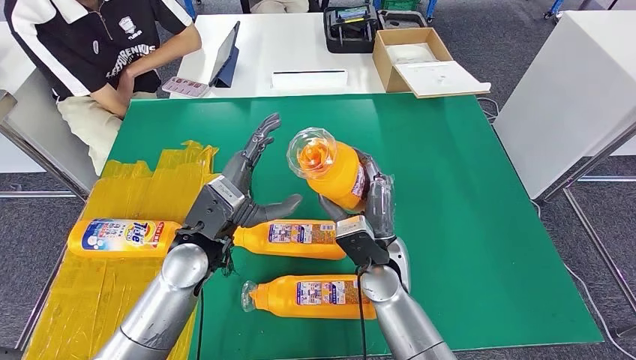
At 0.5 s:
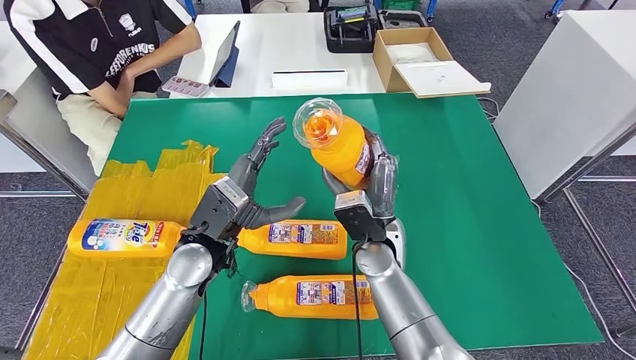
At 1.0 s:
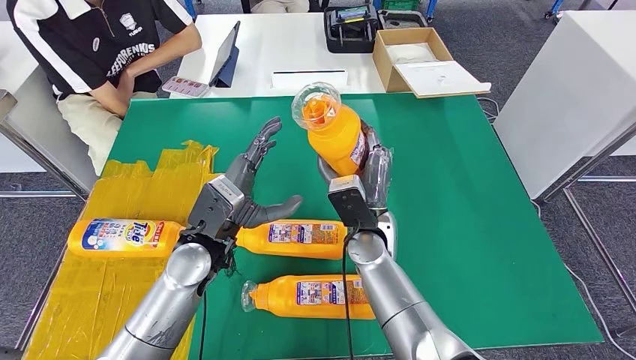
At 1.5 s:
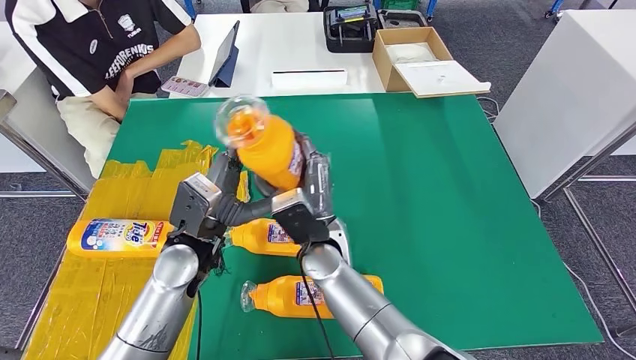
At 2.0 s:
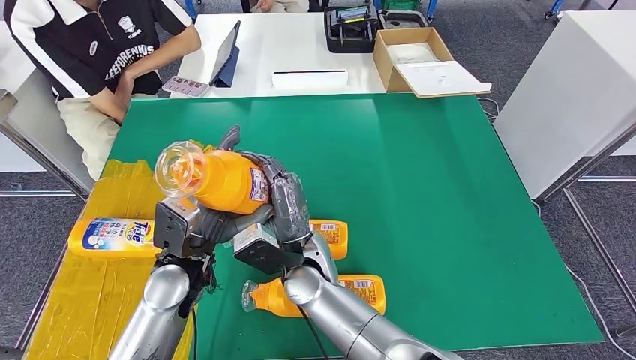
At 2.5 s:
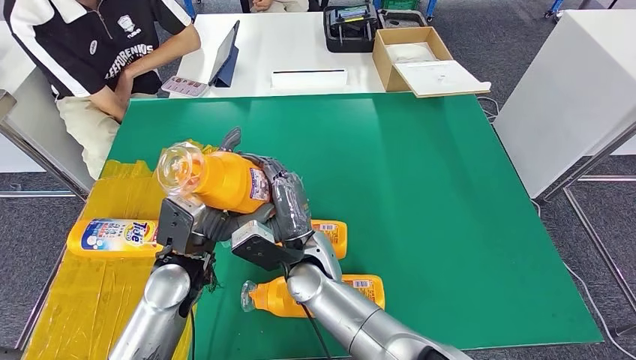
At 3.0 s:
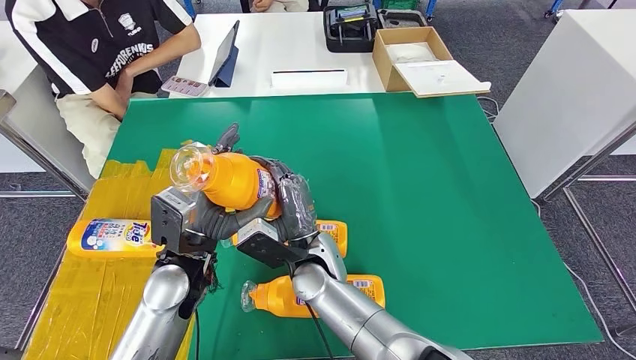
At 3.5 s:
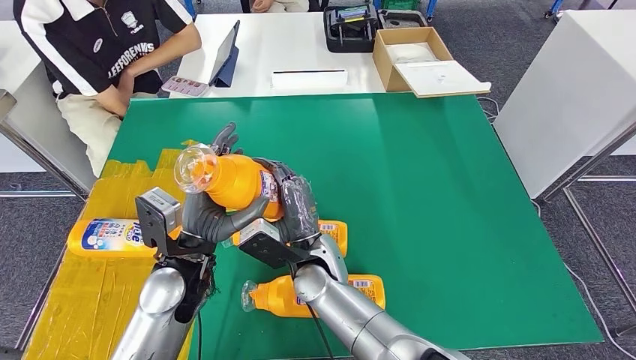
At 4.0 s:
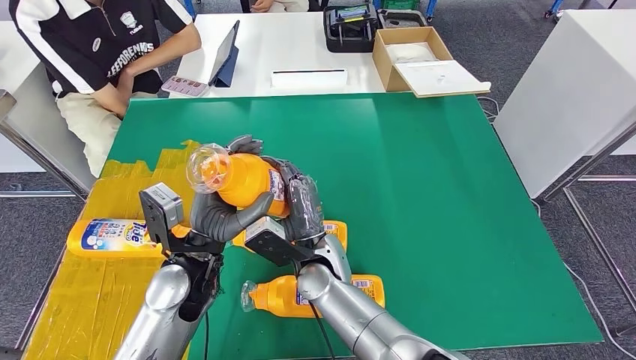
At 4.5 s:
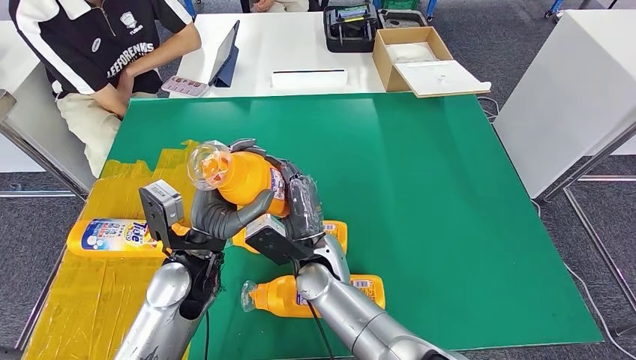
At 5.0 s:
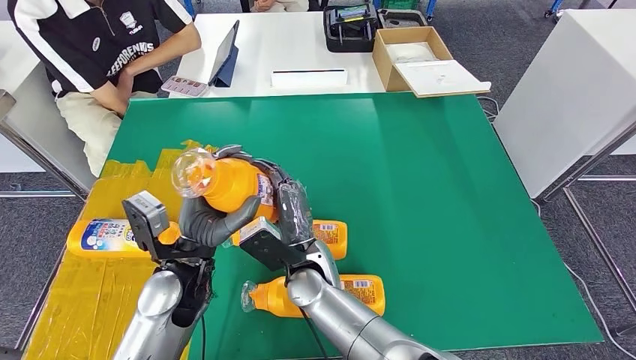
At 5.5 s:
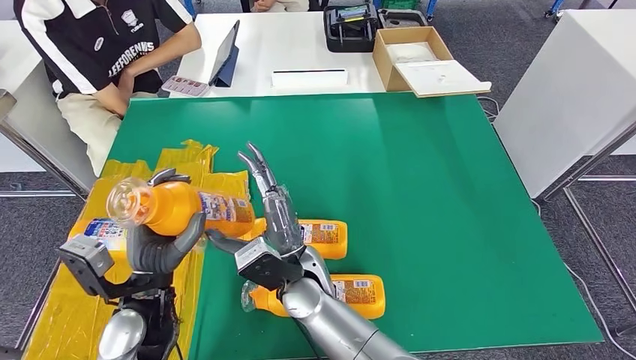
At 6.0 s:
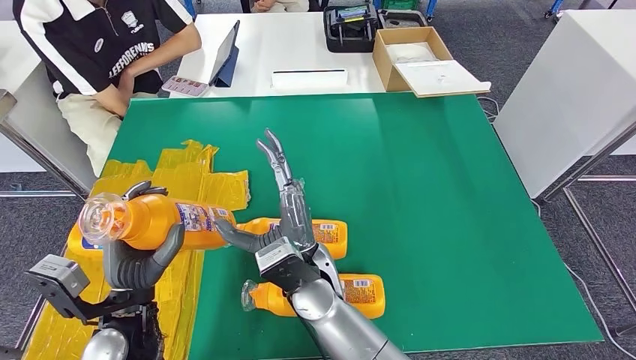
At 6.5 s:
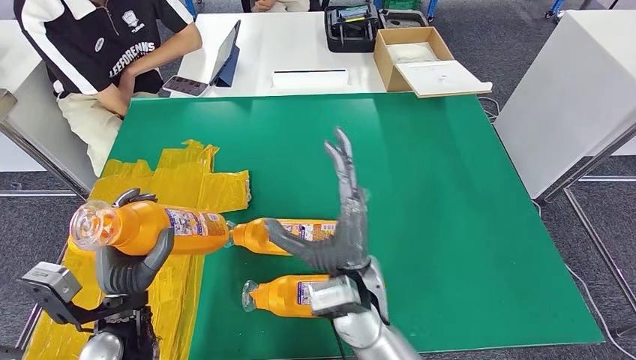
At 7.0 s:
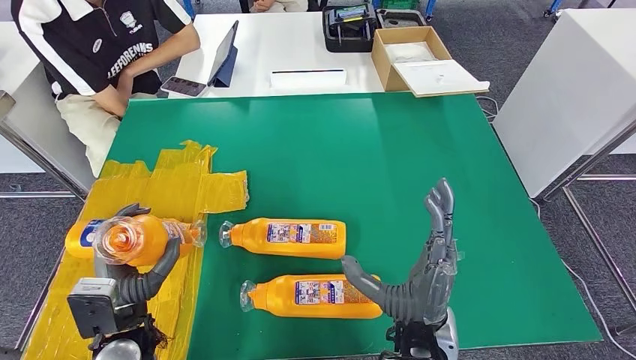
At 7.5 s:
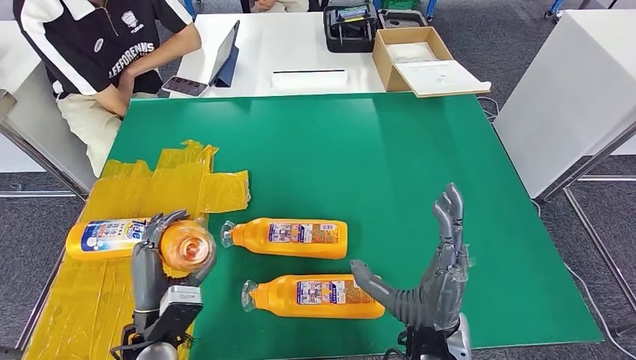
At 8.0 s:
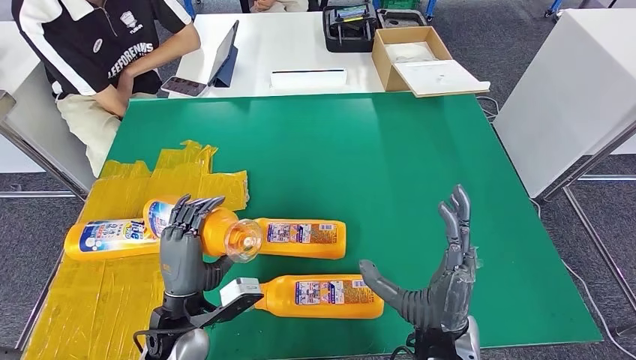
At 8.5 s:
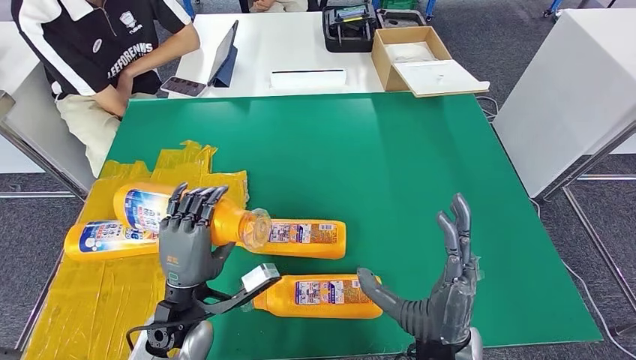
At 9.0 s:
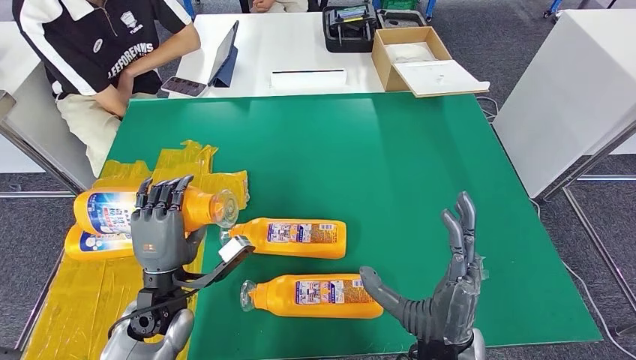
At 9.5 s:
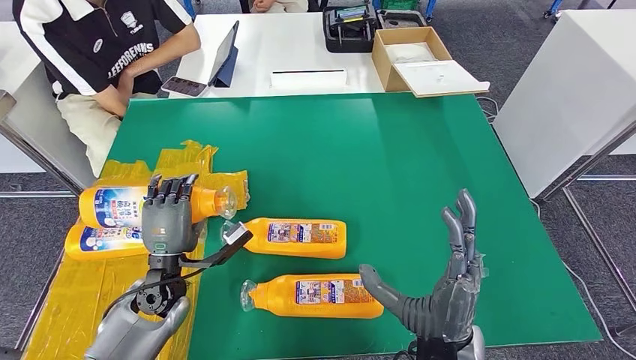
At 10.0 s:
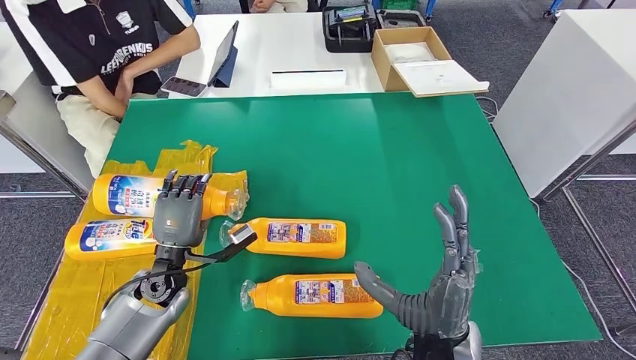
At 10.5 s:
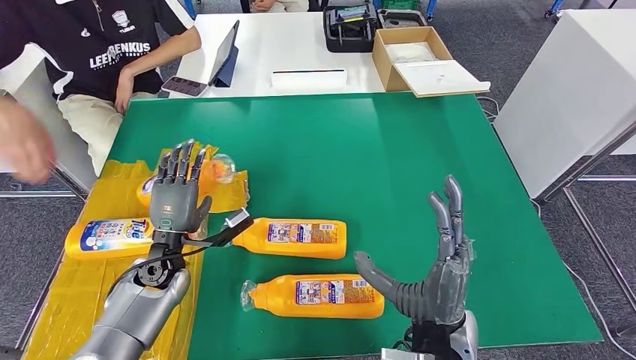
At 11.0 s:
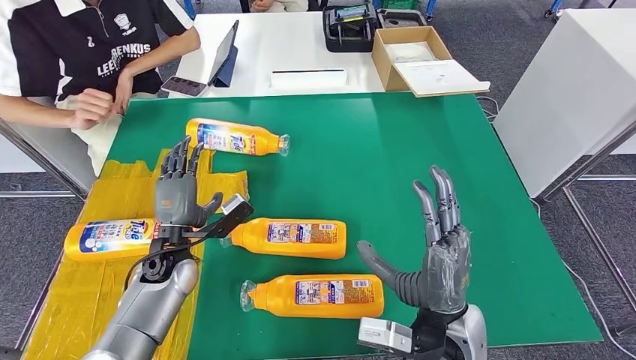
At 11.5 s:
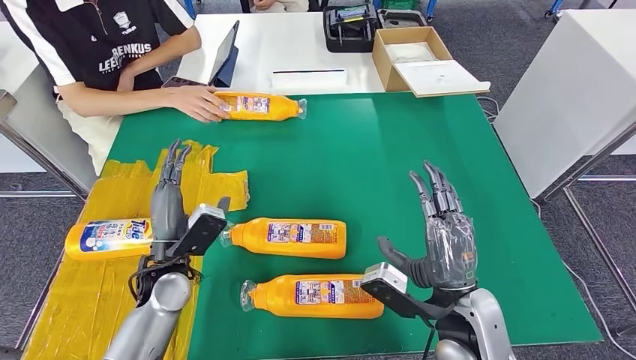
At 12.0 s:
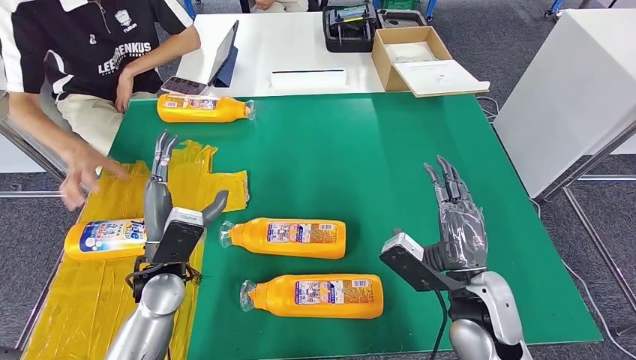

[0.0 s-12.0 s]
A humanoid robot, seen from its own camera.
Step, 0.0 to 10.5 s: Flip the fast-moving consumer goods bottle to the front side.
0.0 to 2.0 s: The right hand heads to the left, covering roughly 10 cm.
2.0 to 4.0 s: The hands move only a little.
4.0 to 6.0 s: The right hand shifts by roughly 5 cm. Meanwhile the left hand travels backward and to the left by about 10 cm.
6.0 to 8.0 s: The left hand is displaced to the right by some 5 cm. Meanwhile the right hand moves to the right and backward, roughly 20 cm.
8.0 to 10.0 s: The left hand travels forward and to the left by approximately 10 cm.

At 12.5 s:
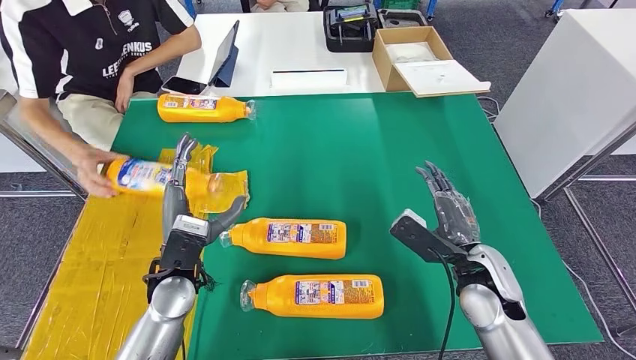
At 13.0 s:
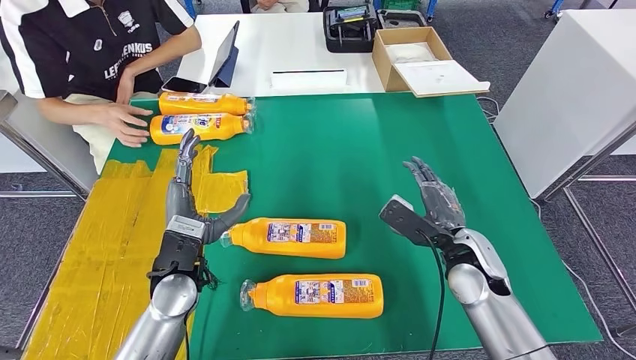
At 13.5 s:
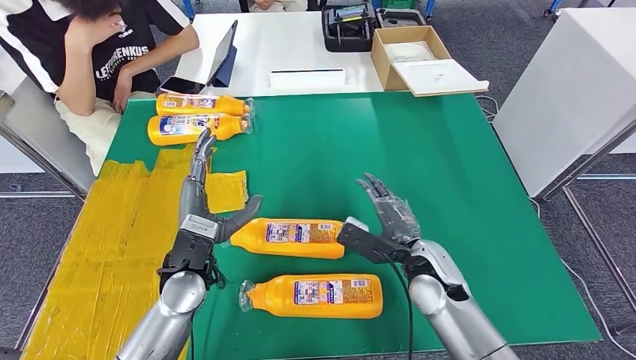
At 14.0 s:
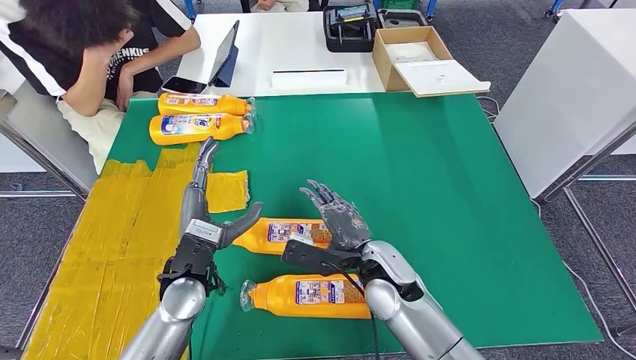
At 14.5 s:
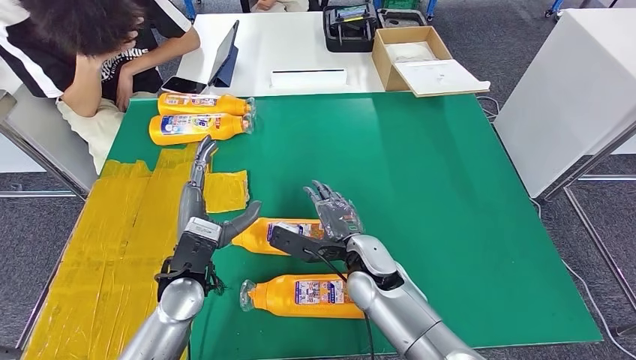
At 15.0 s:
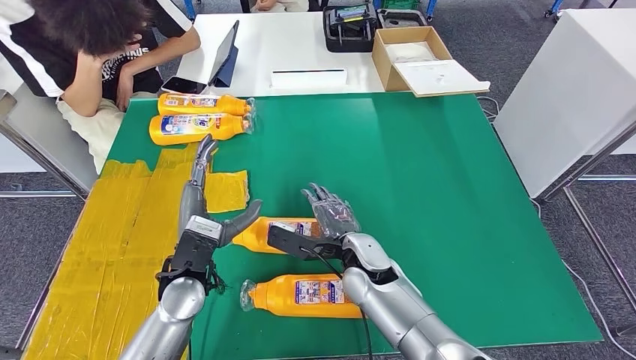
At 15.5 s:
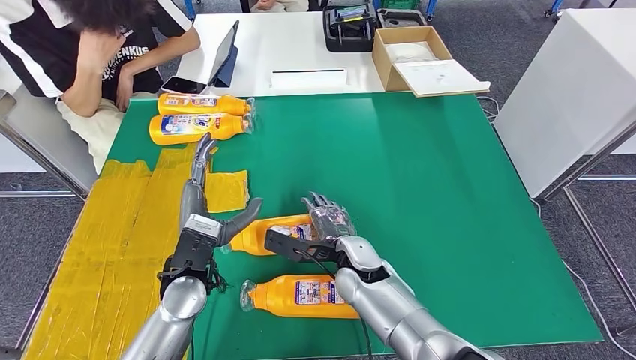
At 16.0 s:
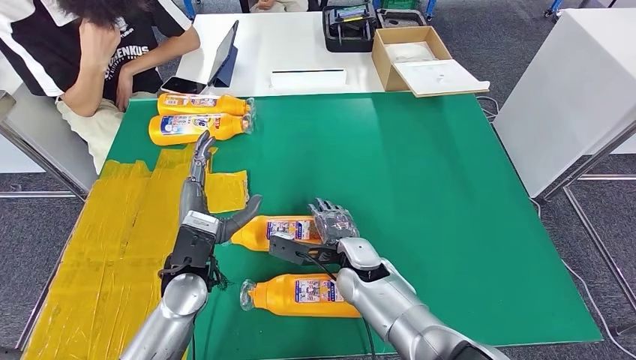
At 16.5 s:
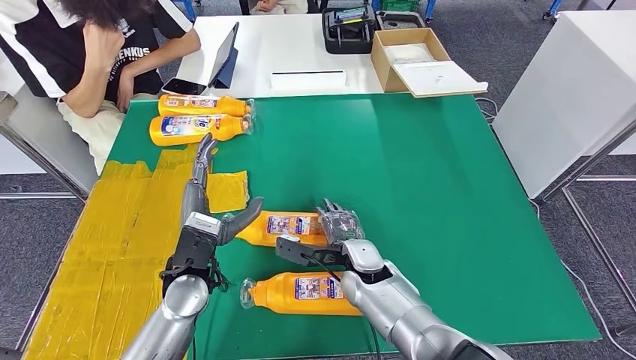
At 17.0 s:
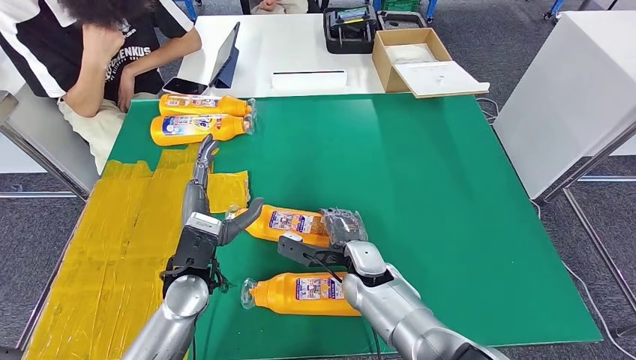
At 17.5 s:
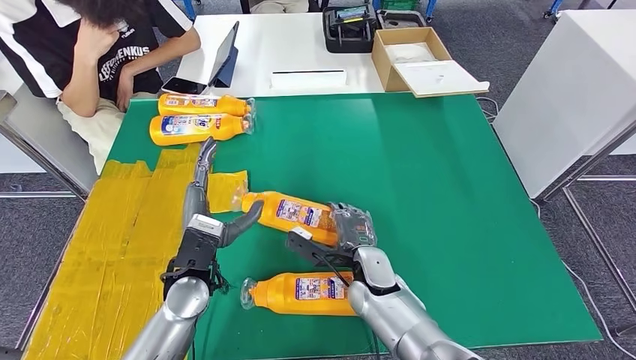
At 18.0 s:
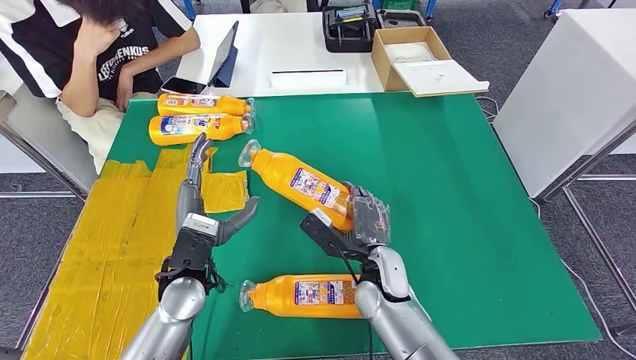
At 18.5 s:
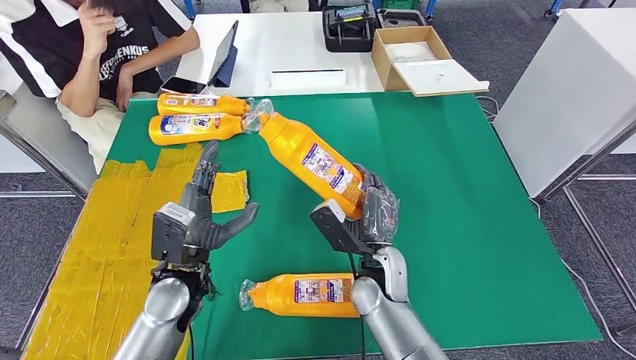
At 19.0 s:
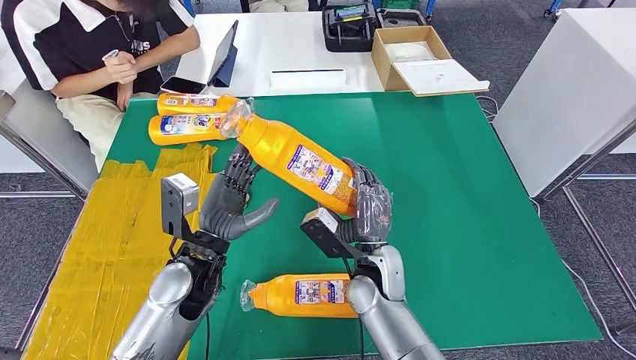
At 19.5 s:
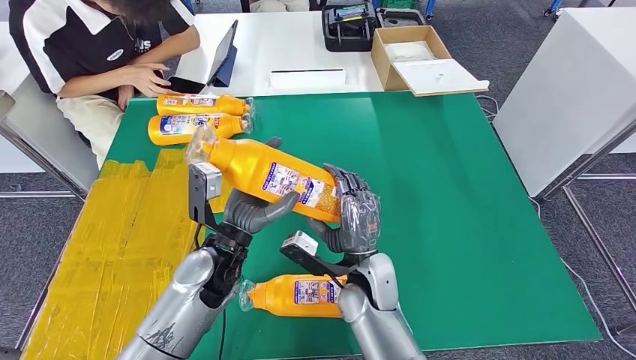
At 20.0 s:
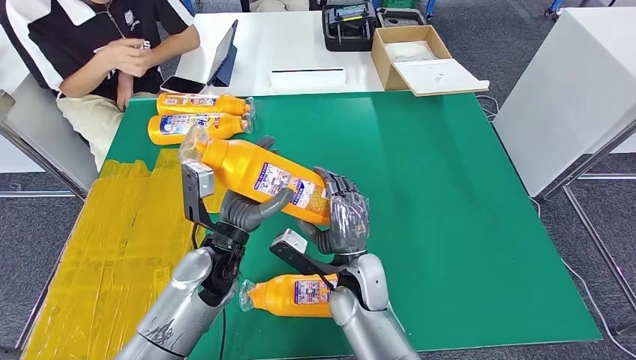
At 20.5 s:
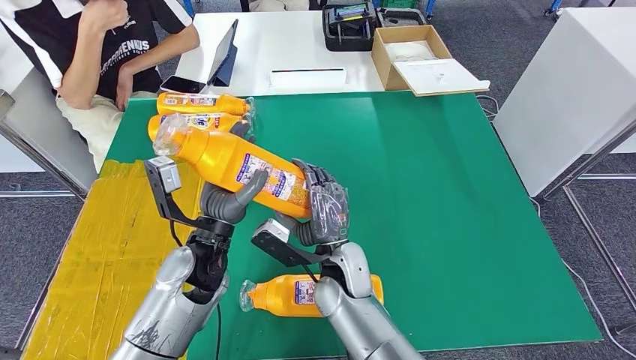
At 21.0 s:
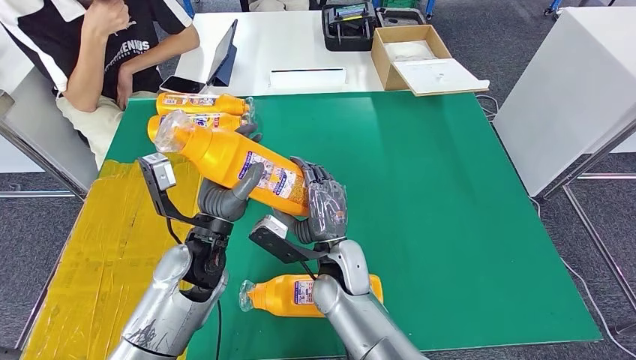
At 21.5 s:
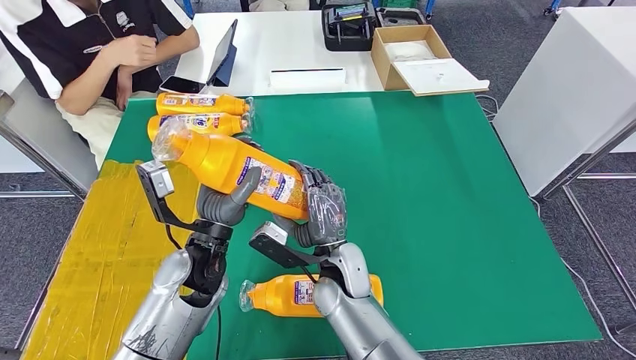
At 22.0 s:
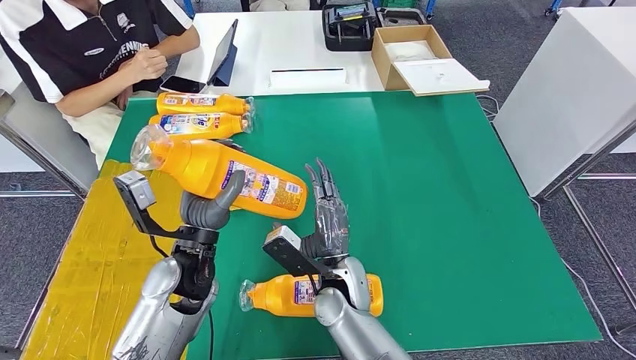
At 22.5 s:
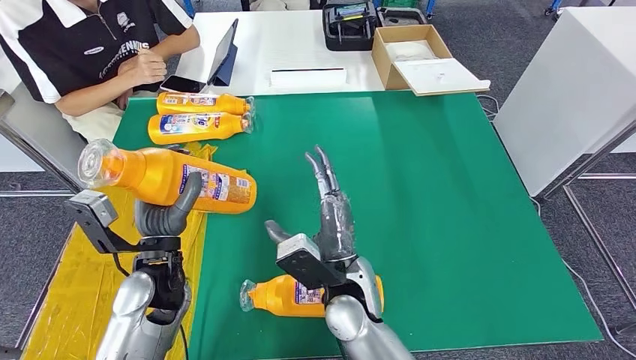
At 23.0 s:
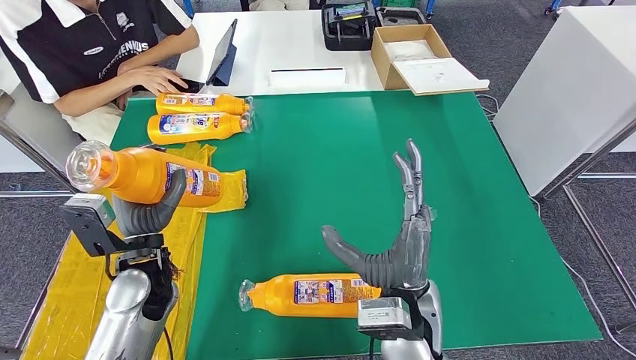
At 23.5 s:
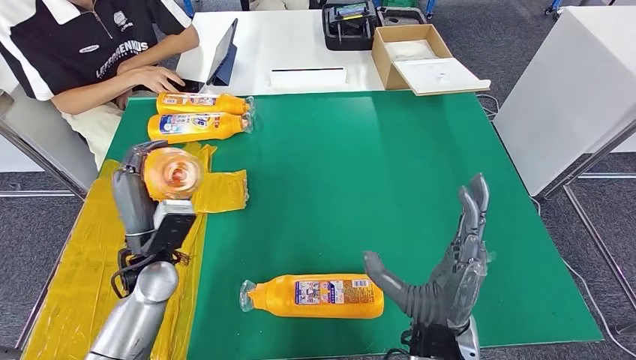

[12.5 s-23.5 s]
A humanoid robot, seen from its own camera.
Step, 12.5 to 17.0 s: Pick up the fast-moving consumer goods bottle from the table.
14.5 to 16.0 s: The hands move only a little.
18.0 to 20.0 s: The right hand moves roughly 5 cm, while the left hand moves some 5 cm.
20.0 to 21.5 s: The hands stay close to where they were, moving slightly.
